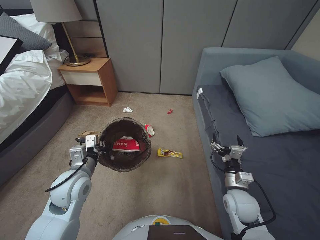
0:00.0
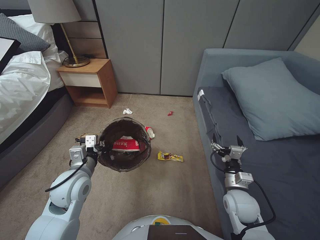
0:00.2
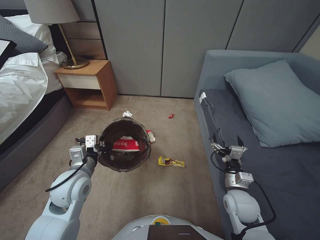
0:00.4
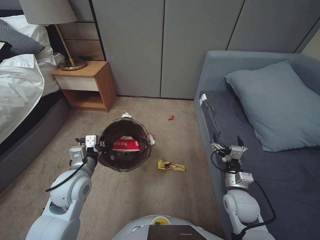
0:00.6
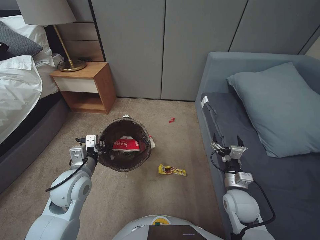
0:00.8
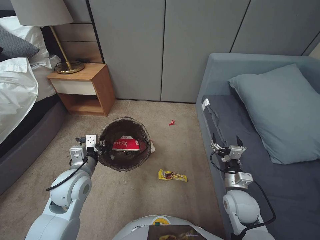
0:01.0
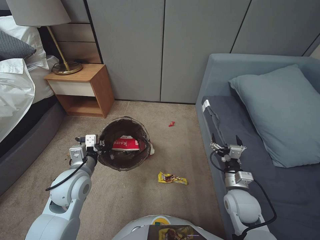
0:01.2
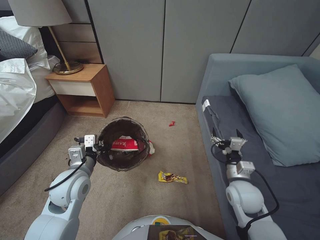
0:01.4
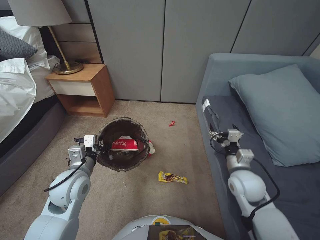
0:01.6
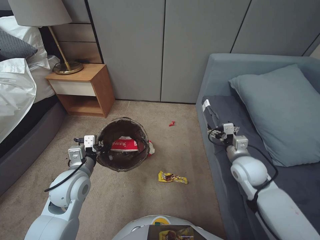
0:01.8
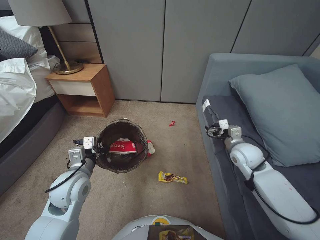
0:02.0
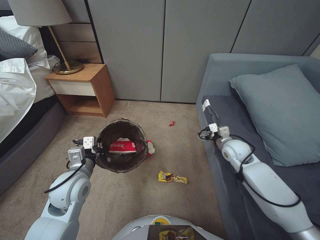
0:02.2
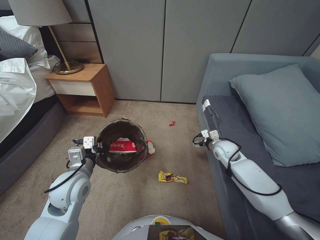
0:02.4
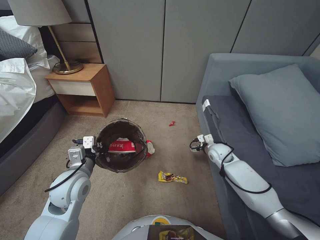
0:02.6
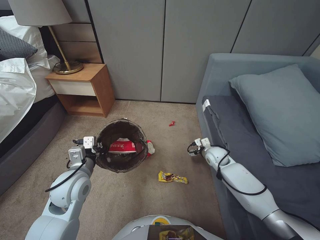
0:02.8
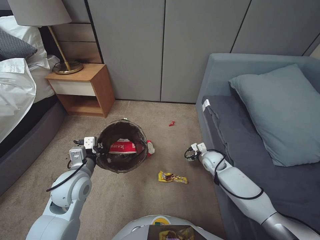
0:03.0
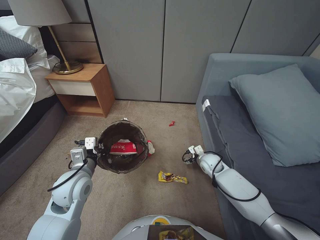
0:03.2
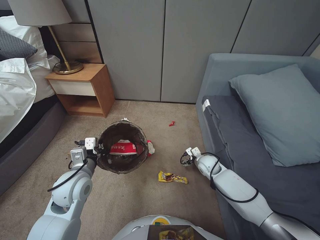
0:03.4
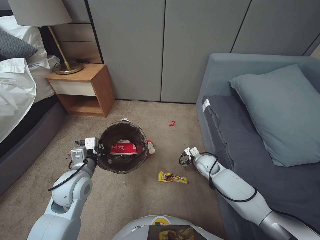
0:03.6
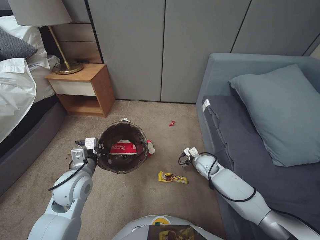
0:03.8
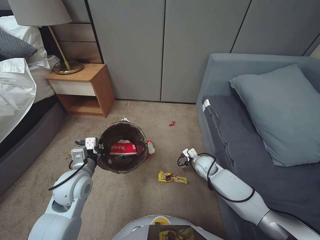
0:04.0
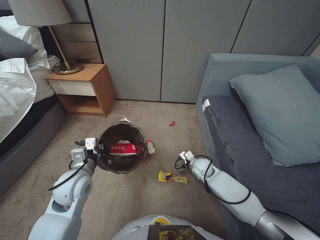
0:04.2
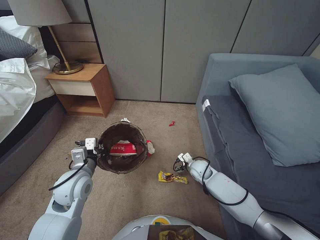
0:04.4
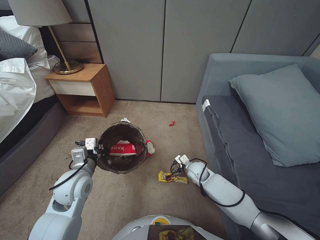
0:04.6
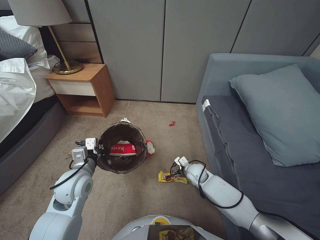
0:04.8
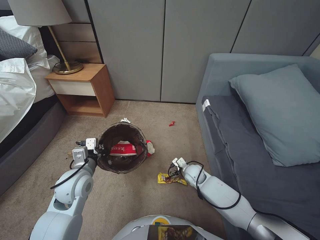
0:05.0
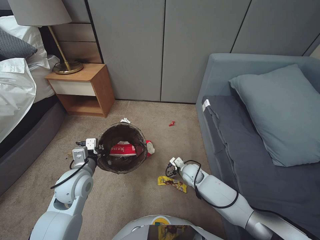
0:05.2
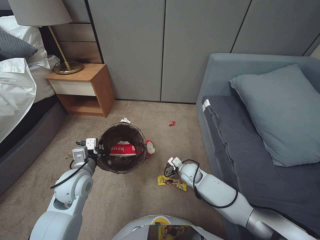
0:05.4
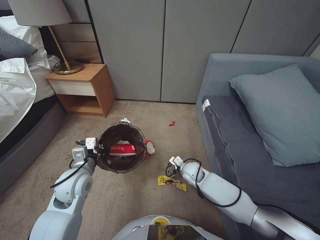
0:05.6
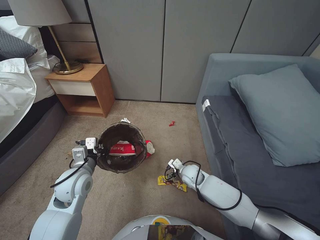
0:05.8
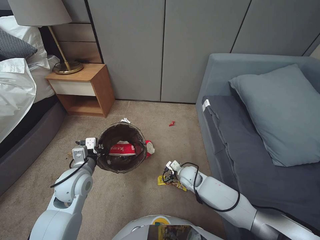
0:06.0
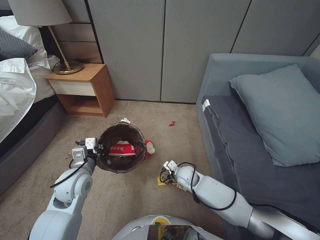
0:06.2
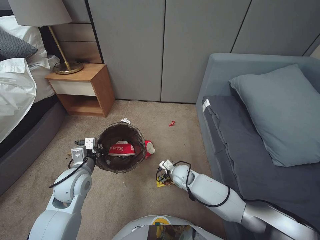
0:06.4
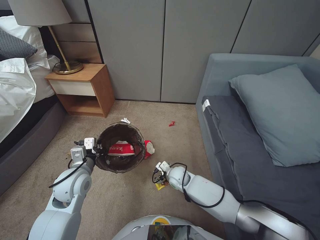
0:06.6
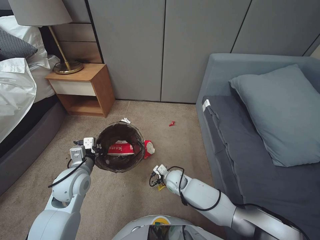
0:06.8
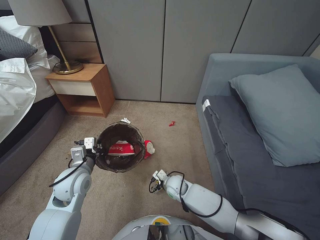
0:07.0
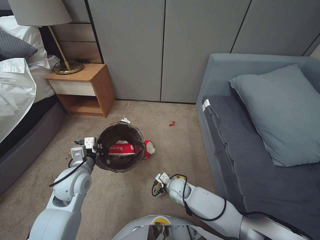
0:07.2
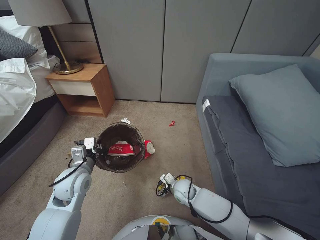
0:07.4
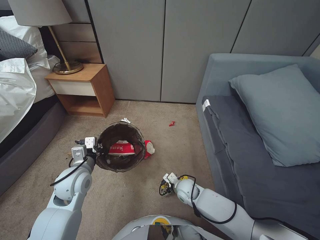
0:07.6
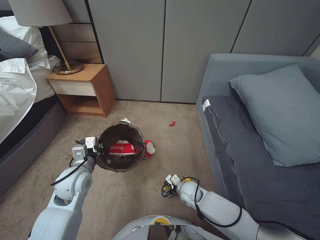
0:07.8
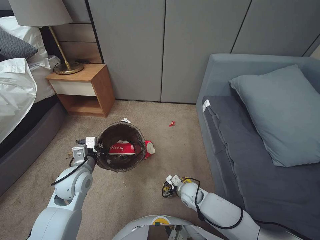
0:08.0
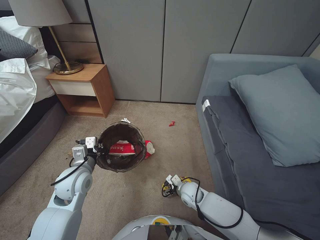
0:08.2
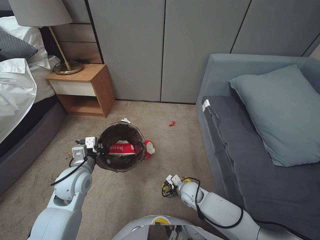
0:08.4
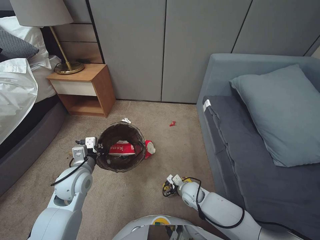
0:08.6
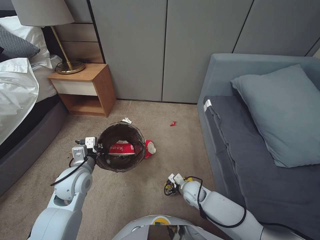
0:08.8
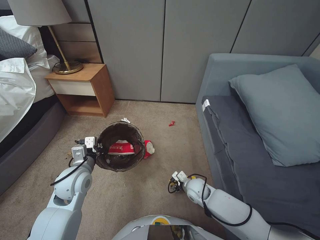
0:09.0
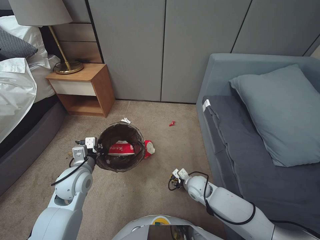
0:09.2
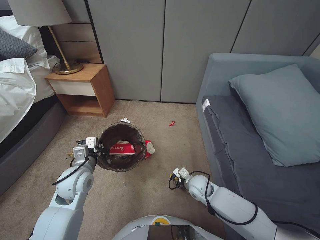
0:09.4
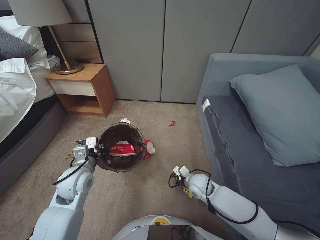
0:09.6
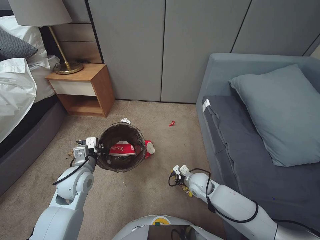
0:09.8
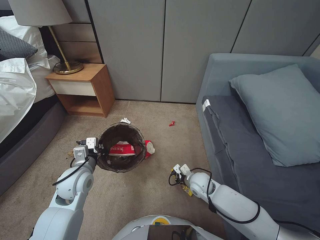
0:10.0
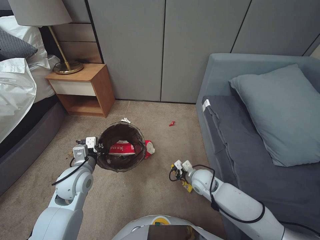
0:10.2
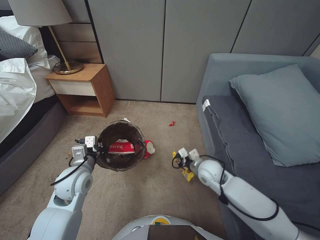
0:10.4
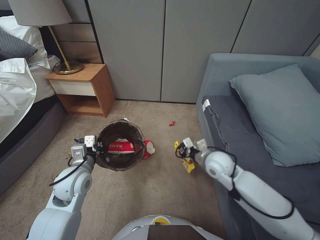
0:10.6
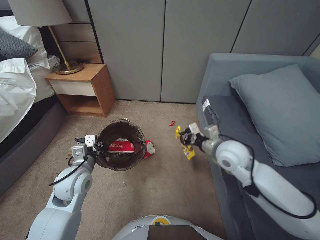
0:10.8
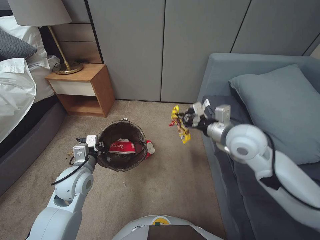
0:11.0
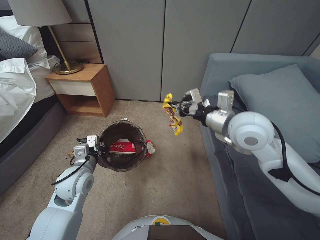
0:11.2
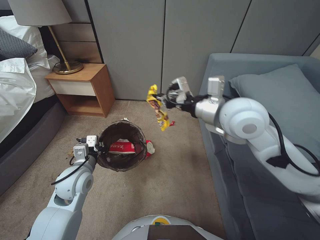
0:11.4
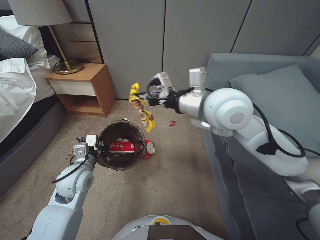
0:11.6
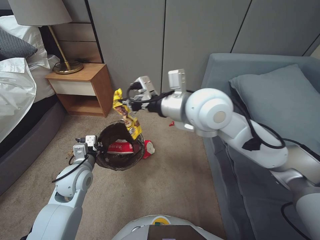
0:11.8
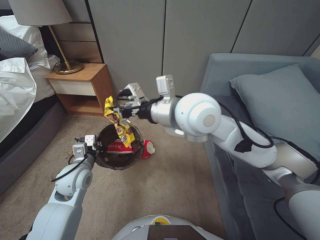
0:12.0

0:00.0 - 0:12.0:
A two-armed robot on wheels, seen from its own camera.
Task of the whole recording: Pick up the trash bin, then pick up the garbage from the floor and place it into the trash bin.
0:00.0 - 0:01.6: The right gripper travels upward by approximately 5 cm.
0:01.6 - 0:03.0: The right gripper is displaced forward and downward by some 20 cm.
0:03.0 - 0:04.4: The right gripper is displaced to the left by roughly 5 cm.
0:04.4 - 0:06.0: The right gripper is displaced to the left by roughly 5 cm.
0:06.0 - 0:07.6: The right gripper moves about 5 cm.
0:07.6 - 0:09.0: The grippers stay close to where they were, moving slightly.
0:09.0 - 0:10.4: The right gripper goes some 10 cm upward, and closes up.
0:10.4 - 0:12.0: The right gripper goes approximately 35 cm upward.

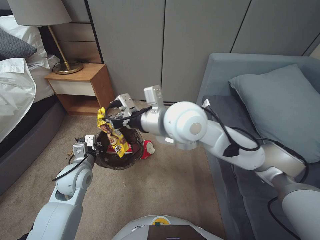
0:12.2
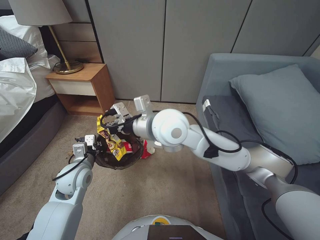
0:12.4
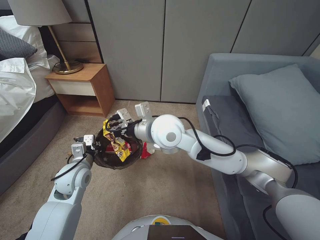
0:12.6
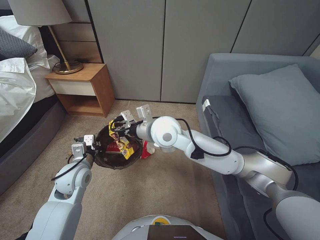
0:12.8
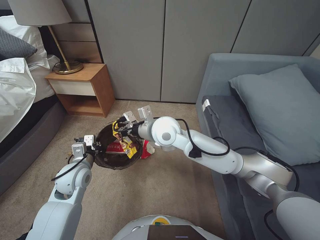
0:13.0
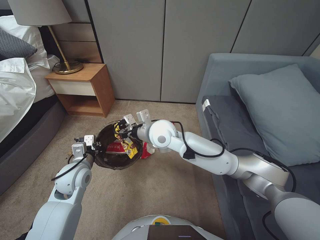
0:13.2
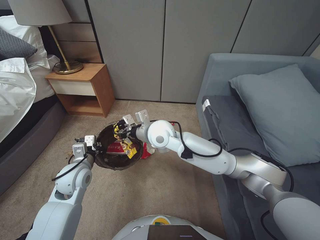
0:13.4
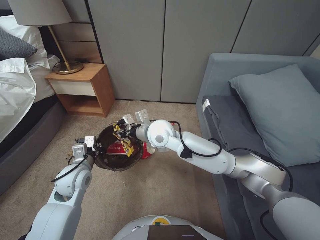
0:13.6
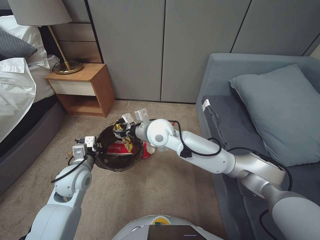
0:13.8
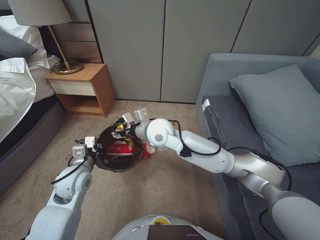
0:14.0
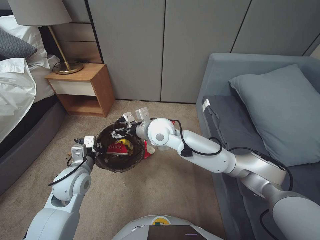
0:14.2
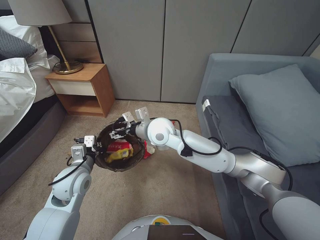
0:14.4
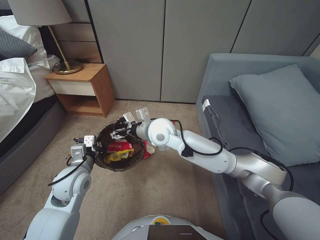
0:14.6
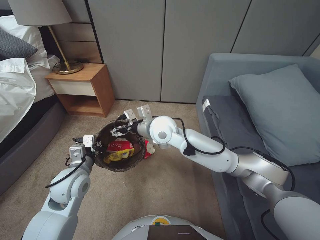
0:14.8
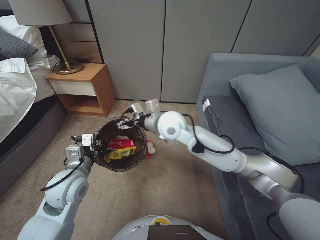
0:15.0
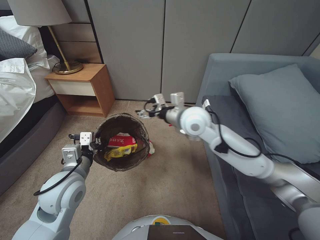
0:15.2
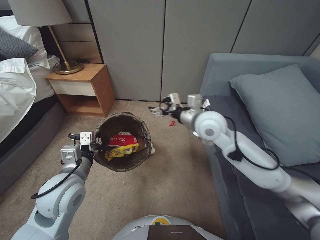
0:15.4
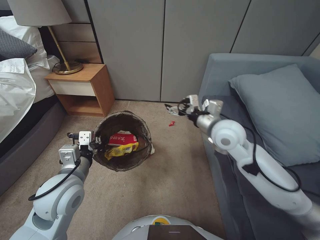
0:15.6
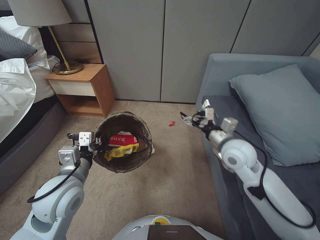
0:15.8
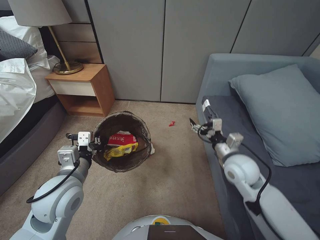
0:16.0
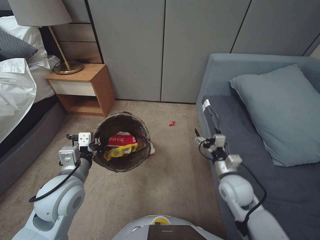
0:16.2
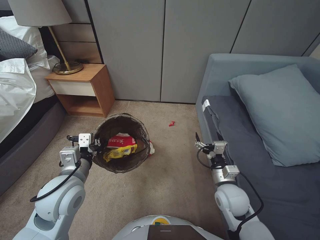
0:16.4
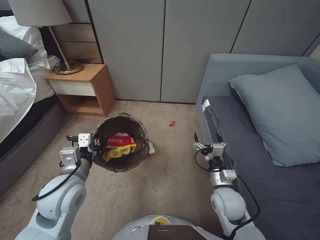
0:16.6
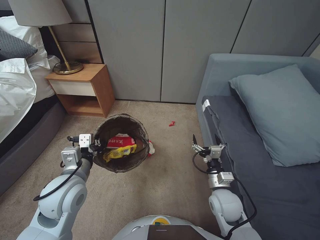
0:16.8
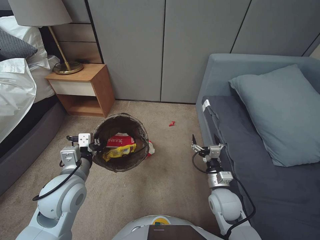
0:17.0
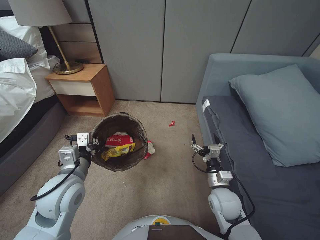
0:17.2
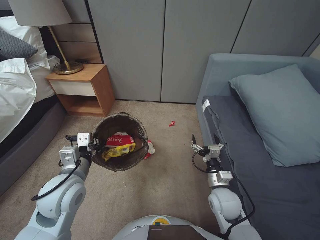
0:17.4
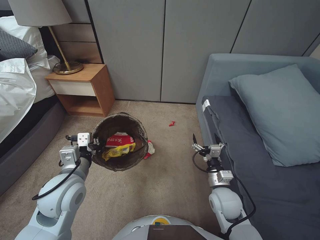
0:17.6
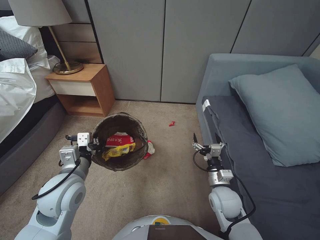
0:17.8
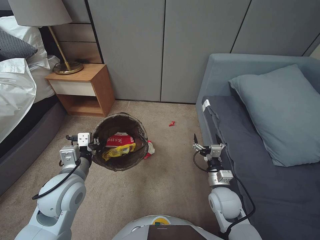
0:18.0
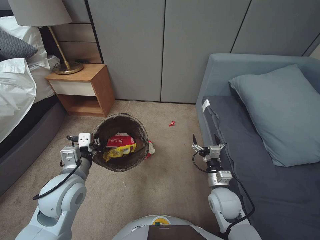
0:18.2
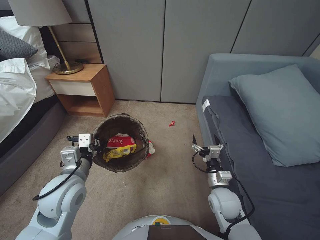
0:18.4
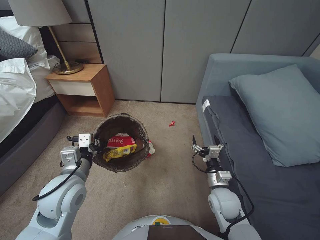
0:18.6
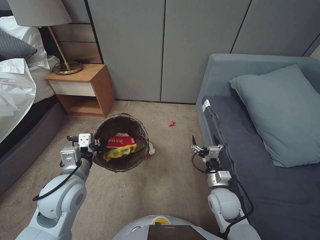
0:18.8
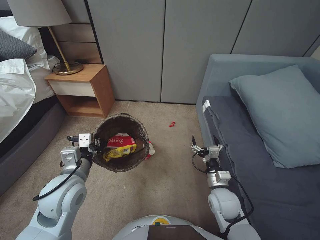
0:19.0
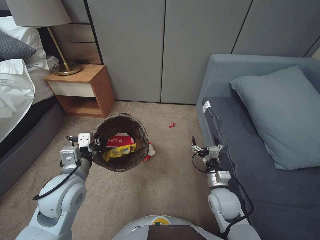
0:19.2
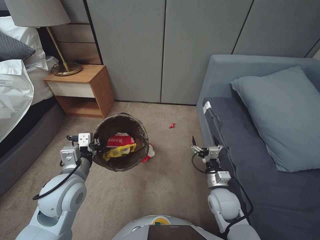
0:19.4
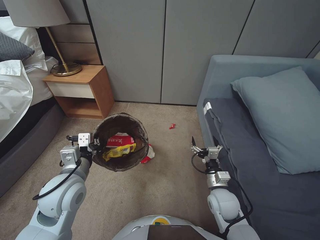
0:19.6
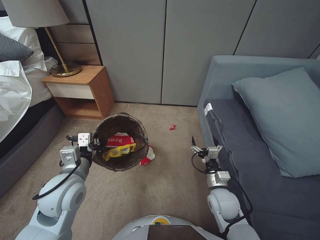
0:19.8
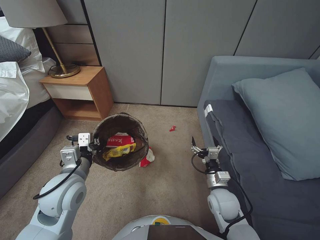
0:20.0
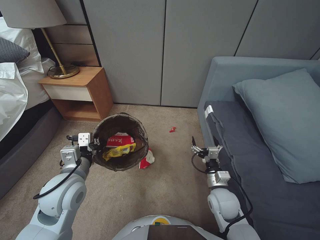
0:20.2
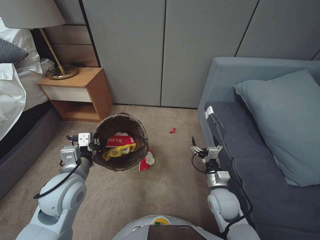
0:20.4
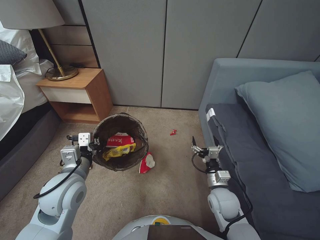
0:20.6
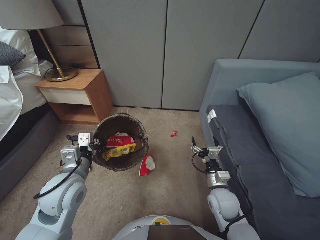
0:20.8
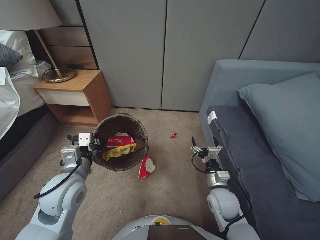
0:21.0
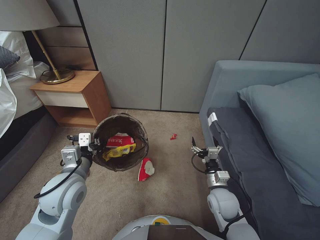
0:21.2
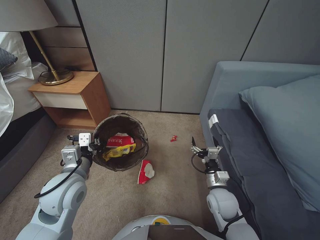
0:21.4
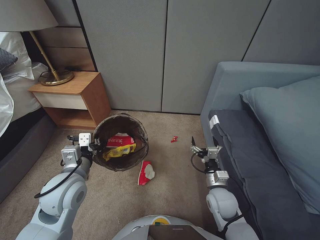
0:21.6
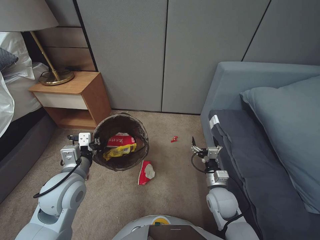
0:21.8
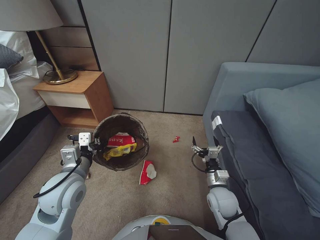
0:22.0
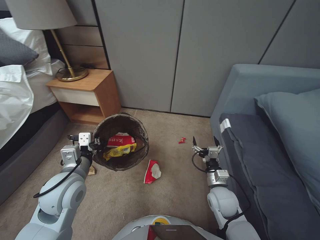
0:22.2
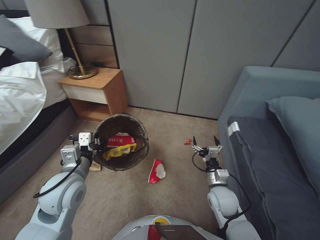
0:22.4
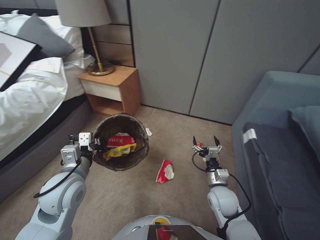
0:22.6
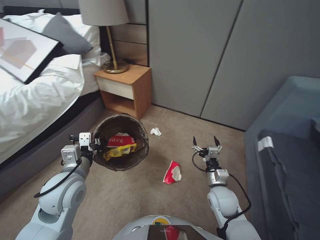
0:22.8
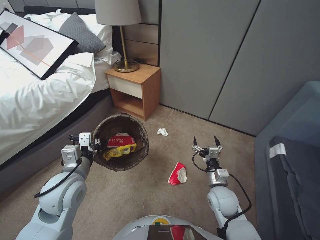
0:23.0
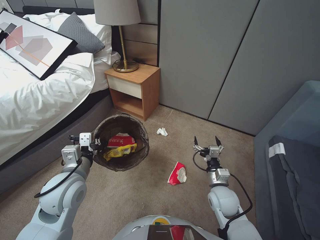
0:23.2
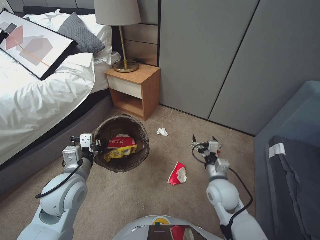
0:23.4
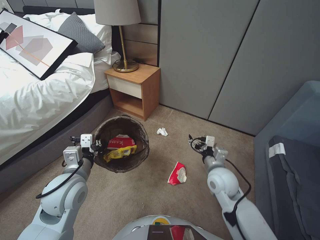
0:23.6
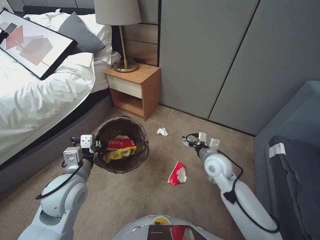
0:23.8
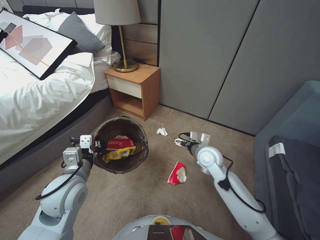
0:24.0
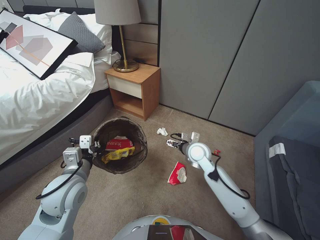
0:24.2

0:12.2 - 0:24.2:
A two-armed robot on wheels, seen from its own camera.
Task of the whole recording: Pick up the trash bin, then pick up the garbage from the floor and place it into the trash bin.
0:12.2 - 0:13.8: The right gripper heads downward and forward, covering approximately 15 cm, and opens its fingers.
0:13.8 - 0:15.2: The right gripper goes roughly 10 cm to the right, and opens up, while the left gripper goes some 5 cm upward.
0:15.2 - 0:16.6: The right gripper shifts roughly 30 cm downward, backward and to the right.
0:16.6 - 0:18.2: The grippers make only small movements.
0:18.2 - 0:21.2: The two grippers keep their place.
0:22.6 - 0:24.2: The right gripper goes approximately 15 cm forward and upward.
